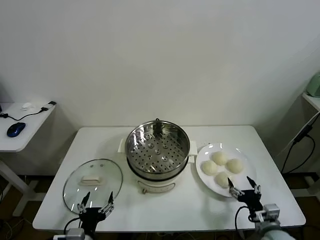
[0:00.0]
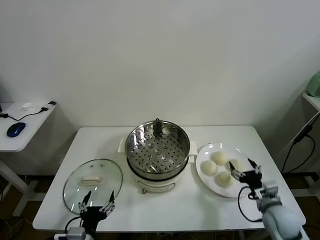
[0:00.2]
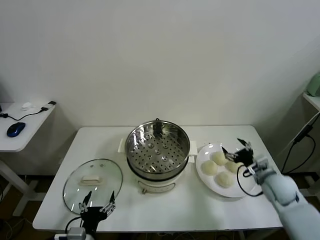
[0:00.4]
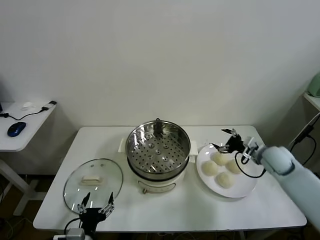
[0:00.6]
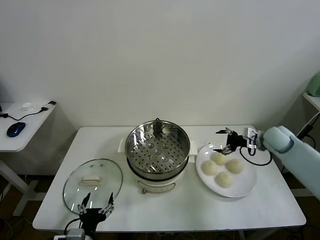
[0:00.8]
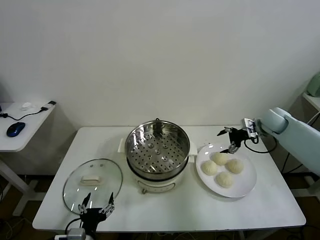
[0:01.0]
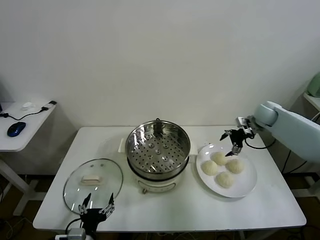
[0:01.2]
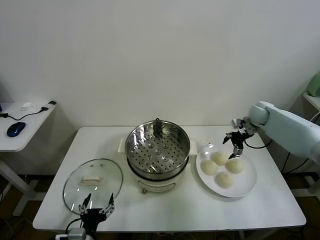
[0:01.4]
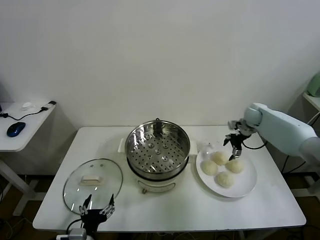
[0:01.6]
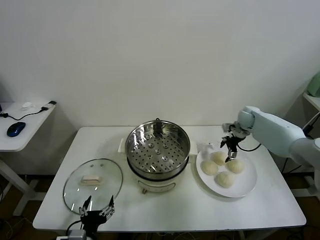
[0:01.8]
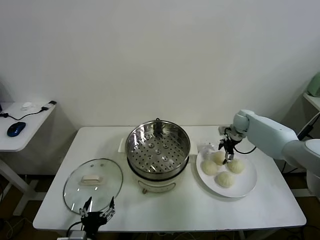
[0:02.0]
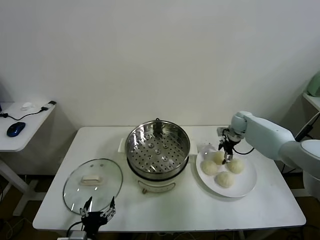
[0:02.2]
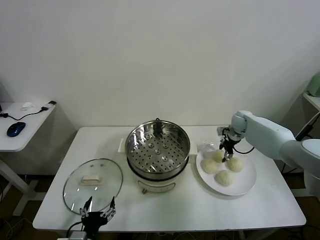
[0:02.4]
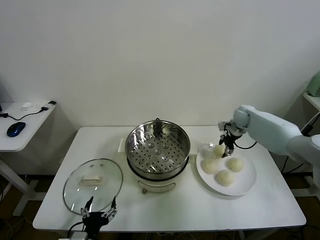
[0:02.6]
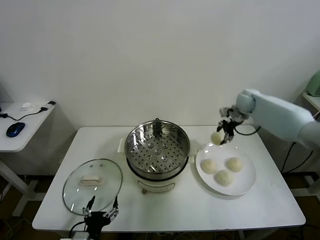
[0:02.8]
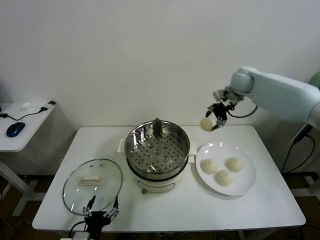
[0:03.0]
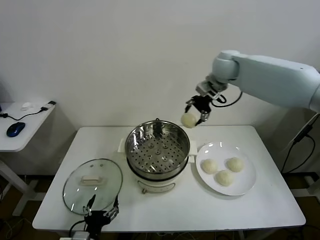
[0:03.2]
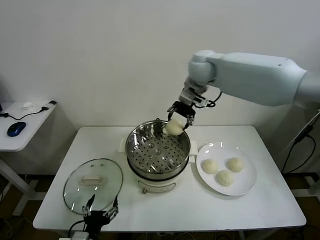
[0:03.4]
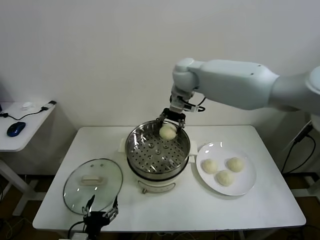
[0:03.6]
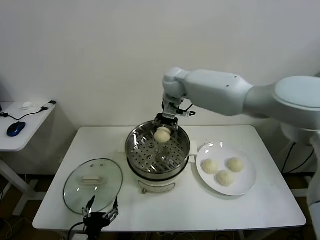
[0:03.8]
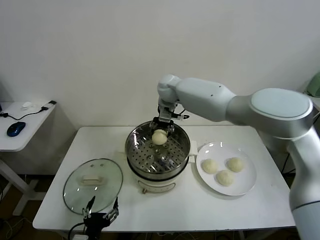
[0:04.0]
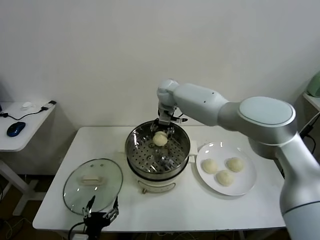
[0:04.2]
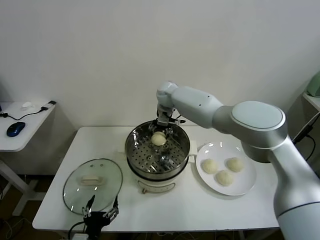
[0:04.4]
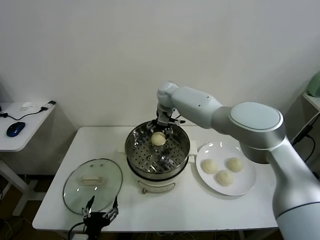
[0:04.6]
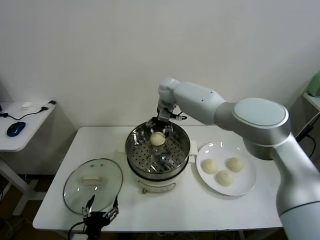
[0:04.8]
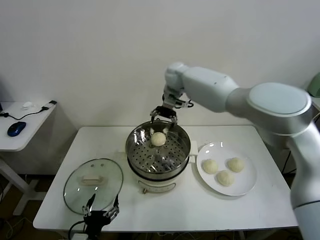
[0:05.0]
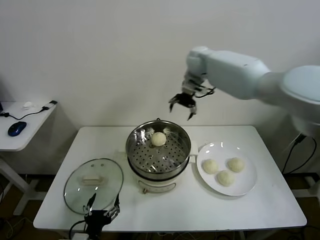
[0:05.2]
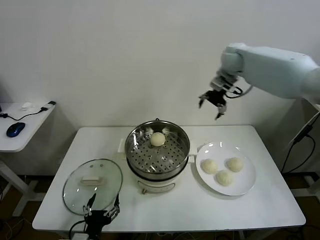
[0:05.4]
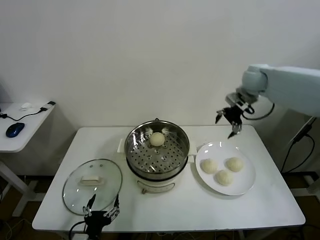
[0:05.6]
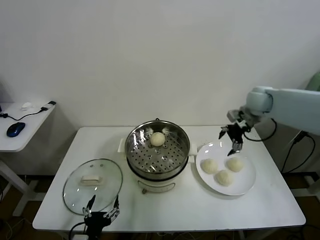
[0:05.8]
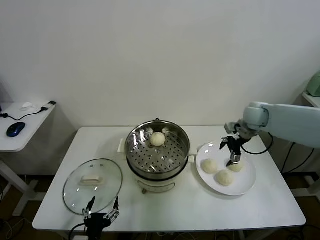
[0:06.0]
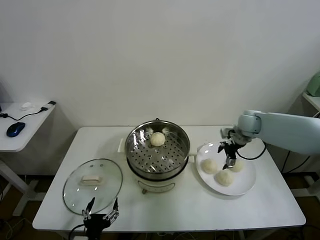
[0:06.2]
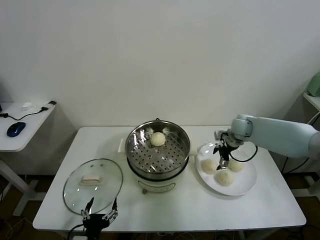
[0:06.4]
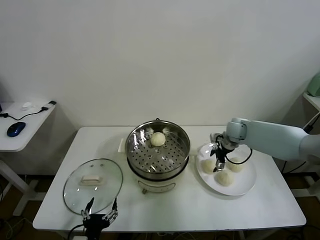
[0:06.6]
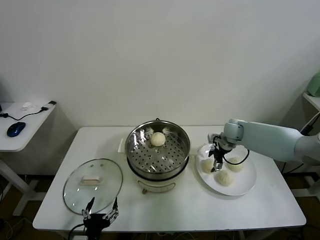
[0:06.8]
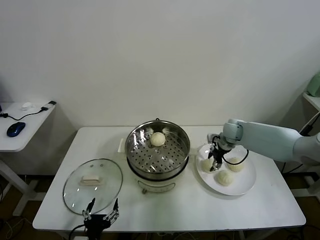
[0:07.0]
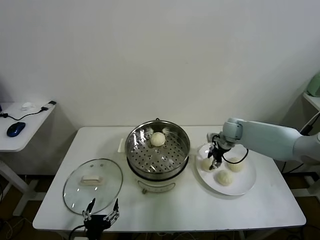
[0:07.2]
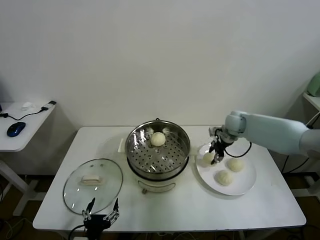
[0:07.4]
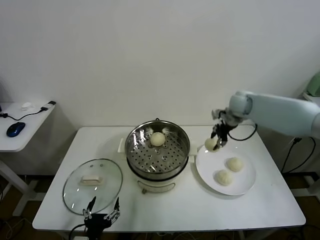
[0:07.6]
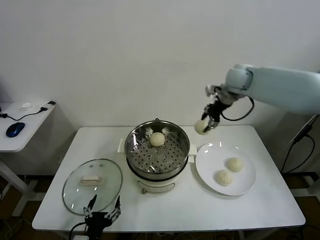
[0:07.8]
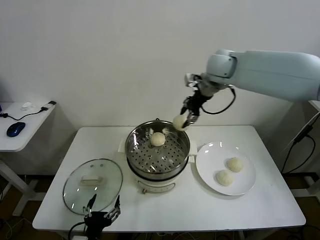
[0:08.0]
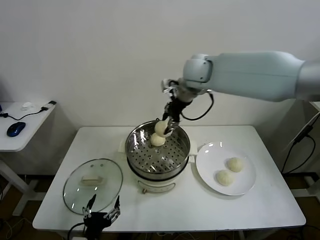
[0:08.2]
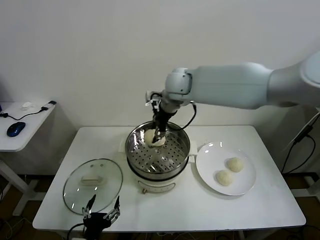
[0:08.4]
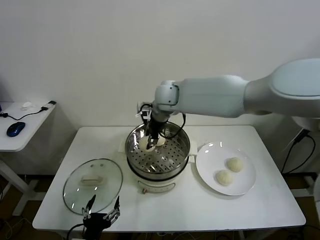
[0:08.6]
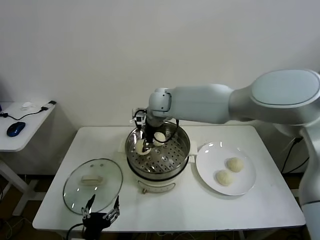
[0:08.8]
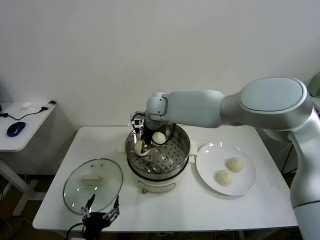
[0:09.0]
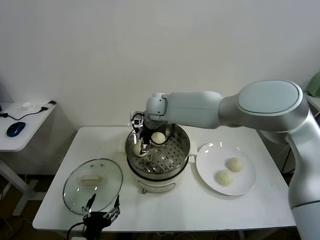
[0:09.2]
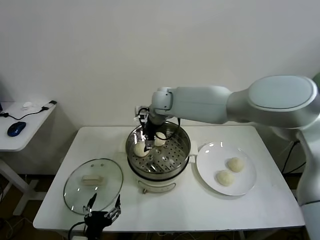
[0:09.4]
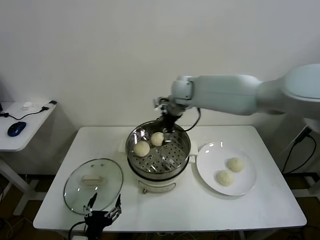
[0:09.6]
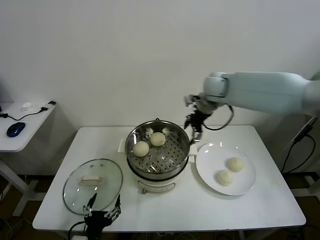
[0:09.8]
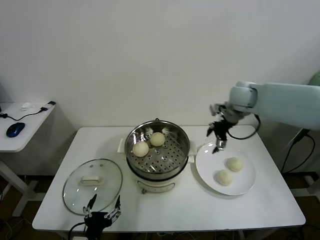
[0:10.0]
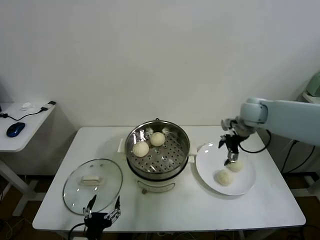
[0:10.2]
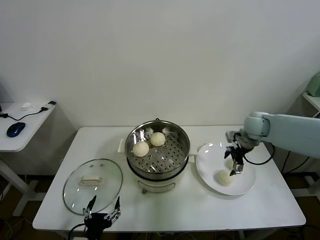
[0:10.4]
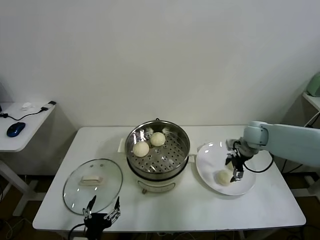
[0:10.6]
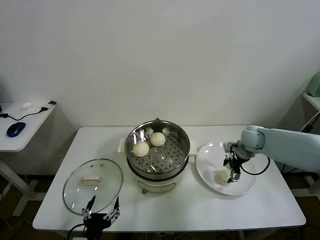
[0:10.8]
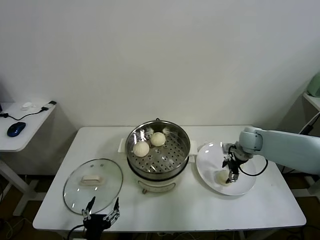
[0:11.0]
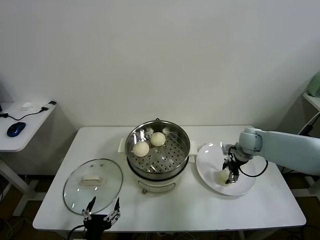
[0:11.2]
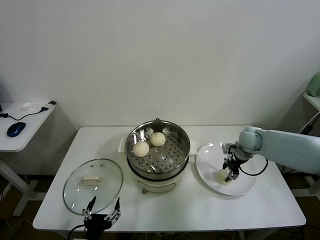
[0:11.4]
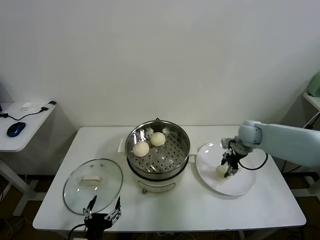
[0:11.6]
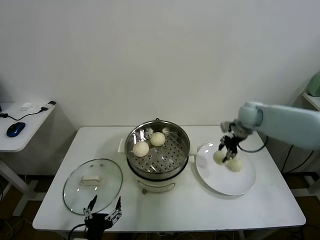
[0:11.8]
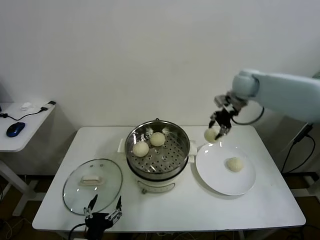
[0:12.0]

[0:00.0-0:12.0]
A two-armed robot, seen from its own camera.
Task of the whole recording: take steamed baozi put them in steamer.
Step, 0:00.0 to 0:02.4: Grasp the baozi in the plate with right gripper.
Step, 0:02.6 to 0:04.8: Place the baozi on the steamer with right gripper.
Step, 0:05.0 to 0:07.0: Grasp the baozi in the plate with right gripper.
Step, 0:07.4 to 0:09.2: Place the baozi on the steamer with right gripper.
Step, 0:09.4 to 0:11.4: Grasp the baozi in the plate with right gripper.
0:01.6 to 0:03.0: The right gripper moves upward and to the left, approximately 25 cm, and closes up.
0:03.0 to 0:04.4: The right gripper travels to the left and downward by roughly 25 cm.
0:04.4 to 0:06.0: The right gripper travels to the right by approximately 30 cm.
0:06.0 to 0:07.6: The right gripper is displaced upward and forward by roughly 10 cm, and closes its fingers.
0:07.6 to 0:09.0: The right gripper shifts about 30 cm to the left.
0:09.0 to 0:10.4: The right gripper moves to the right, some 35 cm, and opens its fingers.
0:10.4 to 0:12.0: The right gripper moves upward, to the left and forward, some 20 cm, and closes its fingers.

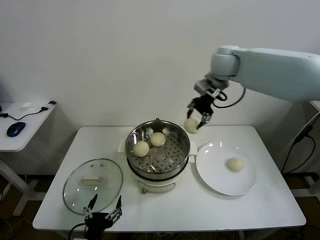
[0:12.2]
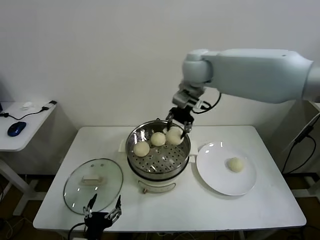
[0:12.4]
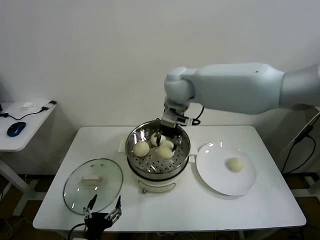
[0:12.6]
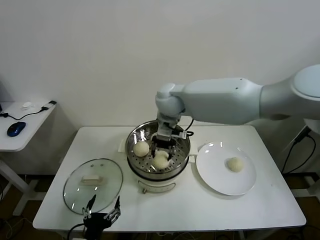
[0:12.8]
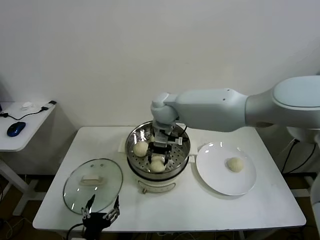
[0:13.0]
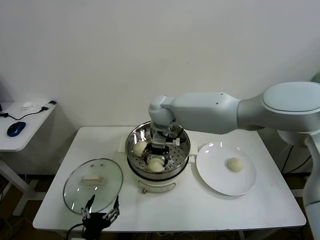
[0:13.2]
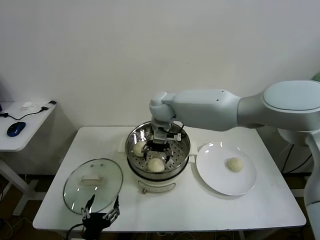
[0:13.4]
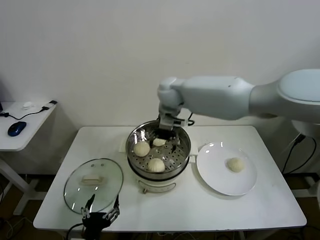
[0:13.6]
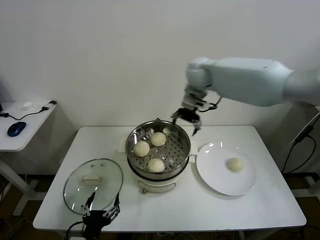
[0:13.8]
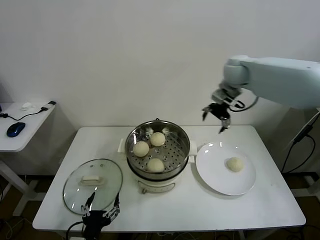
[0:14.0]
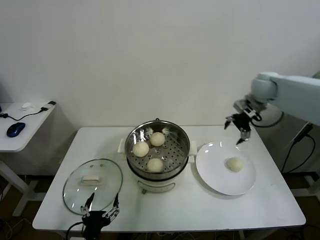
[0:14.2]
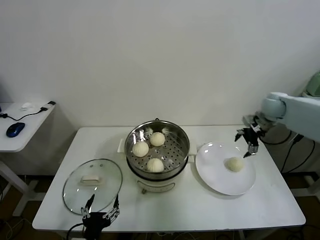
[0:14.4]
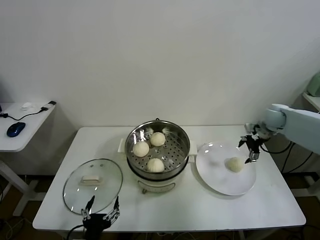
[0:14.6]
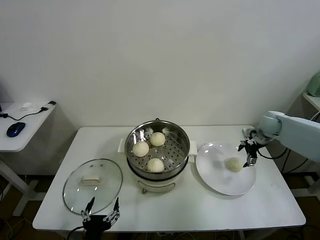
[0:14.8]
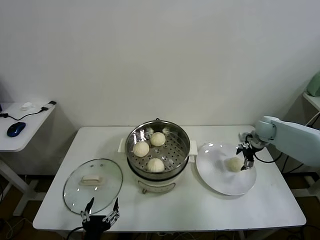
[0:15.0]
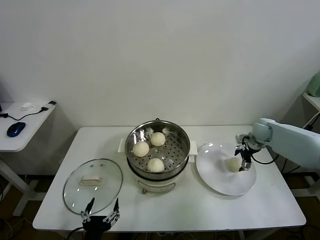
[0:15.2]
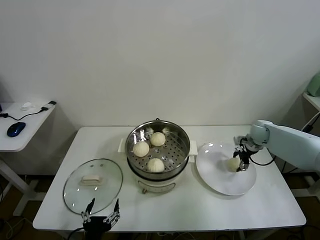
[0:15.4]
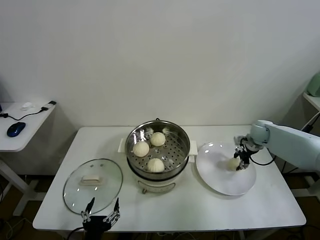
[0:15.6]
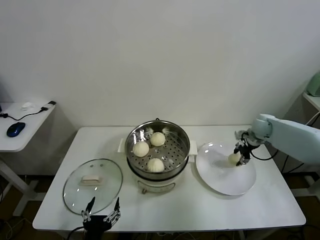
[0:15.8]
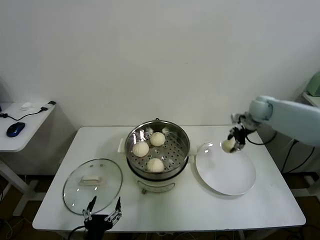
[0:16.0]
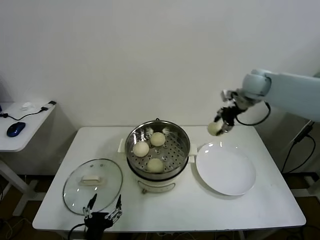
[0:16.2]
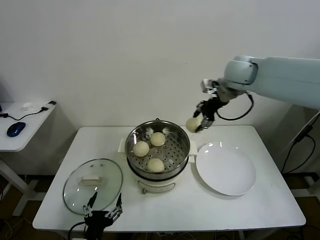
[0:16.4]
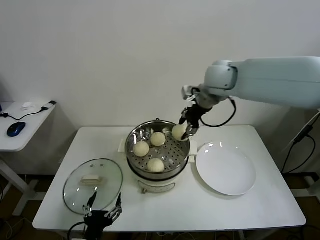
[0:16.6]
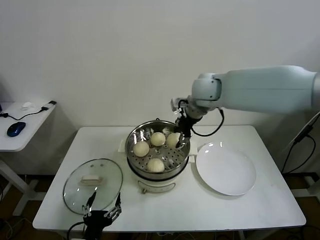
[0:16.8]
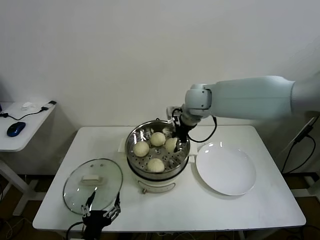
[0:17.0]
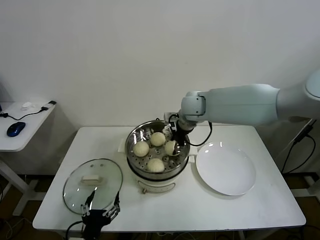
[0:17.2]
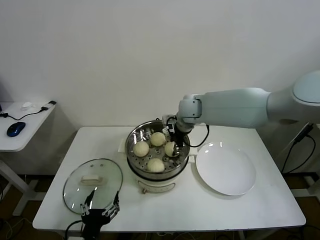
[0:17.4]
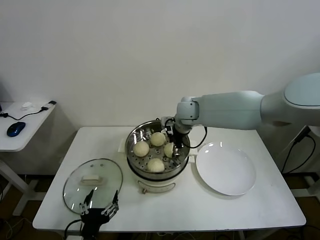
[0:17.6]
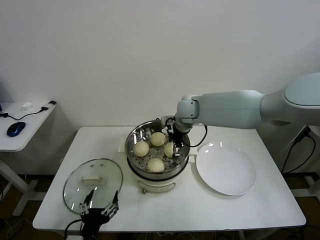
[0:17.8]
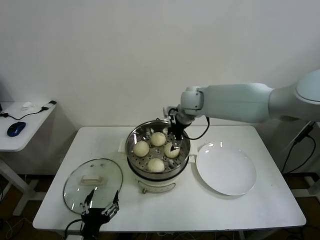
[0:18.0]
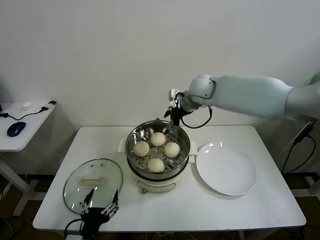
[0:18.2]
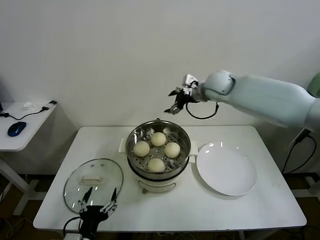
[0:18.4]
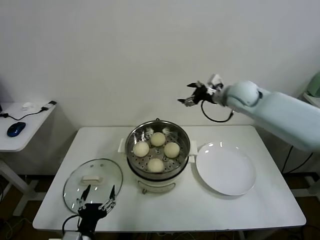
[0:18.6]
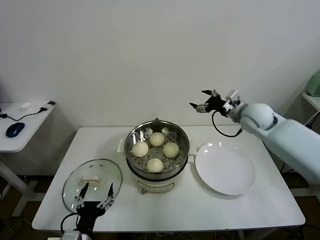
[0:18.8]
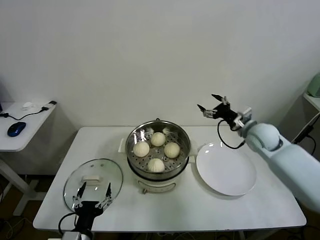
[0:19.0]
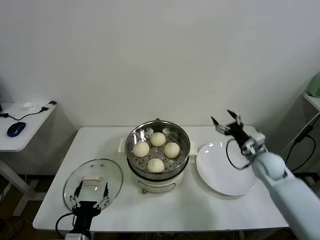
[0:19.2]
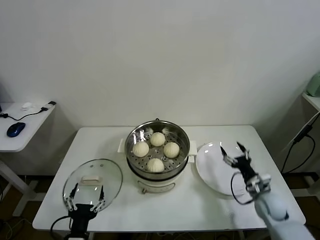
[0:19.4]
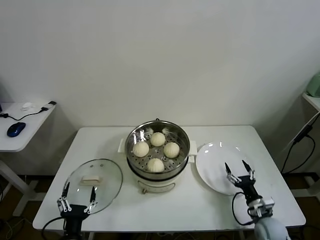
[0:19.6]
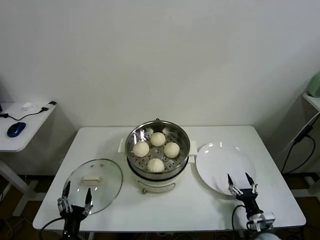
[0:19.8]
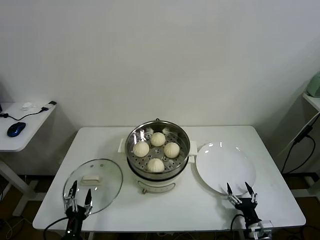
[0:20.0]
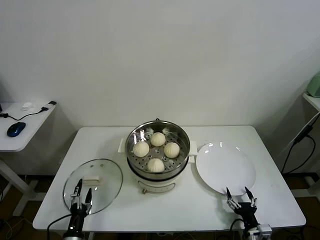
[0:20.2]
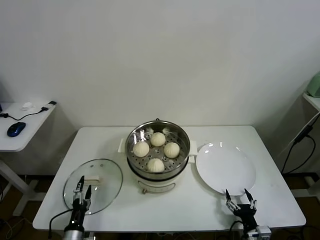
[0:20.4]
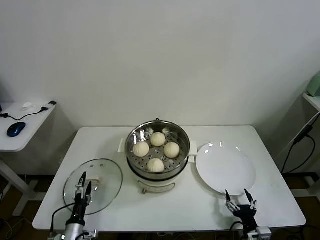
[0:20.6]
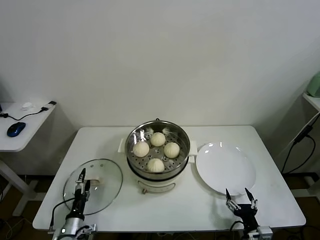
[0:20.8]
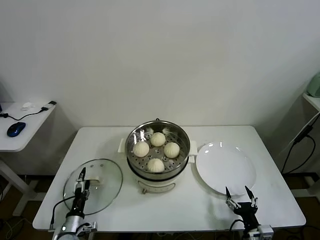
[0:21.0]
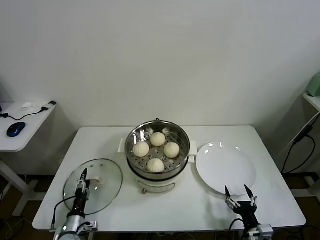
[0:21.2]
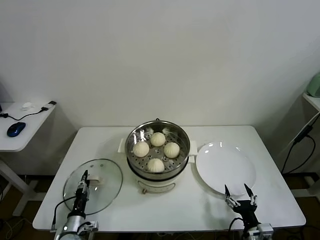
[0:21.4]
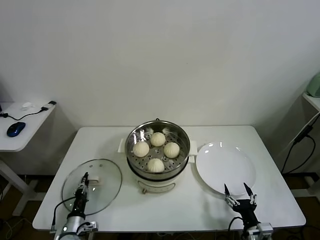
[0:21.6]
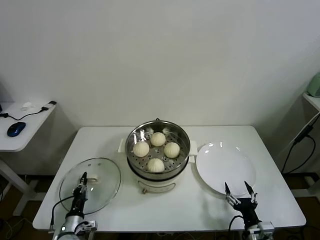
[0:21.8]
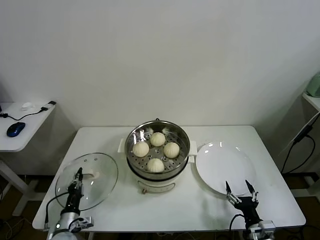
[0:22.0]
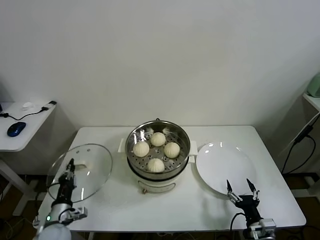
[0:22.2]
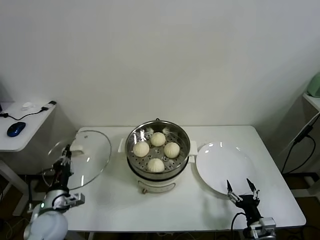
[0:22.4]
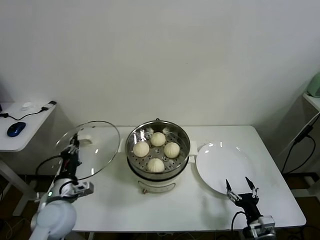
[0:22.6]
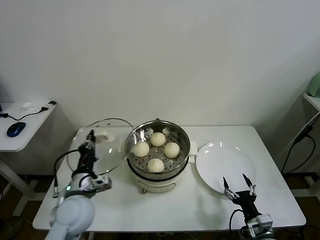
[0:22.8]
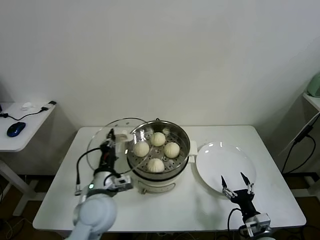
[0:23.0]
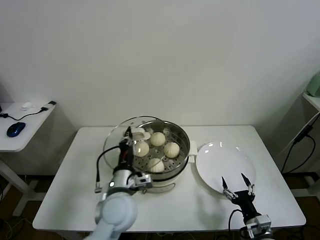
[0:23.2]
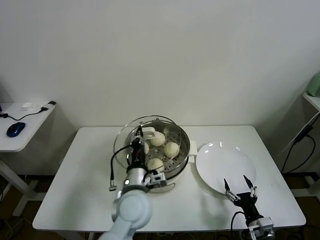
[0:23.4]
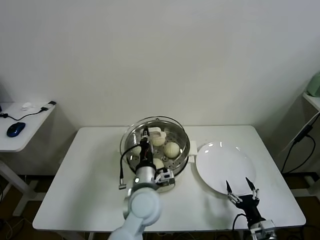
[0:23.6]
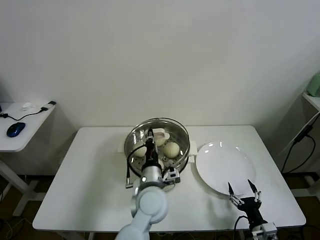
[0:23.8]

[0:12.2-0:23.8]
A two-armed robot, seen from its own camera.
Task of the whole recording: take steamed baozi put them in steamer.
Step, 0:12.2 to 0:13.4: Place the baozi on the steamer with right gripper.
Step, 0:13.6 to 0:15.6: Grasp the baozi in the plate with right gripper.
Step, 0:15.8 to 0:17.8: Place the baozi on the steamer with right gripper.
Step, 0:18.0 to 0:22.0: Grasp the pot lid with left gripper.
0:12.2 to 0:13.6: The right gripper travels to the left and downward by approximately 15 cm, and opens.
0:13.6 to 0:15.0: The right gripper travels to the right and downward by roughly 40 cm.
0:15.0 to 0:16.6: The right gripper travels to the left and upward by some 35 cm, and closes up.
0:16.6 to 0:18.0: The right gripper goes about 10 cm downward and to the left, and opens.
0:18.0 to 0:19.4: The right gripper is displaced downward, to the right and backward by approximately 50 cm, while the left gripper changes place by some 5 cm.
0:19.4 to 0:21.0: The right gripper shifts approximately 15 cm backward, while the left gripper heads downward, to the left and forward, covering some 20 cm.
0:21.0 to 0:22.4: The left gripper shifts some 15 cm upward, and closes.
0:22.4 to 0:23.8: The left gripper shifts approximately 30 cm to the right.
